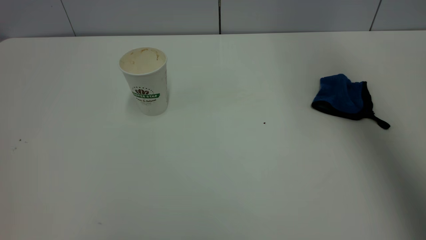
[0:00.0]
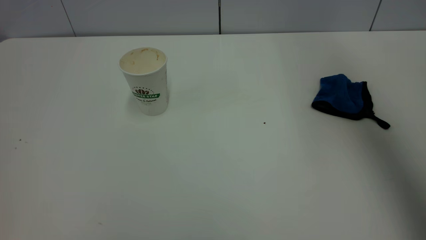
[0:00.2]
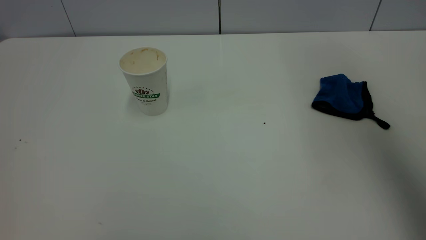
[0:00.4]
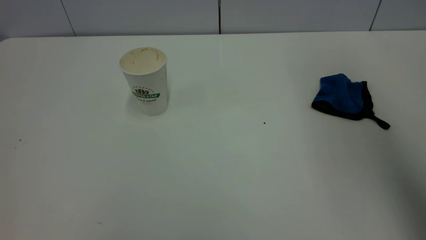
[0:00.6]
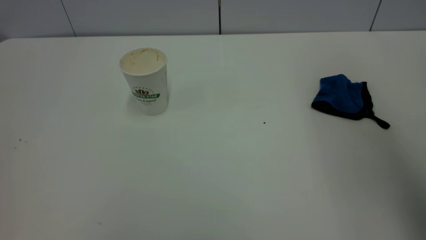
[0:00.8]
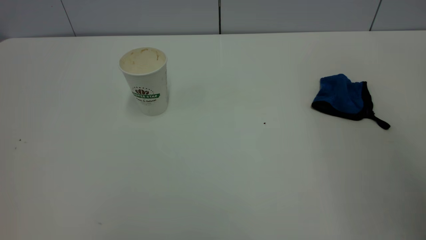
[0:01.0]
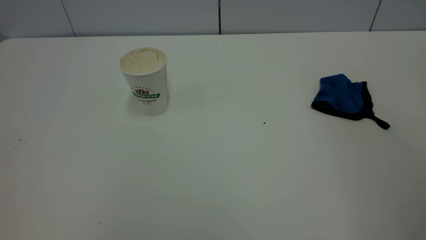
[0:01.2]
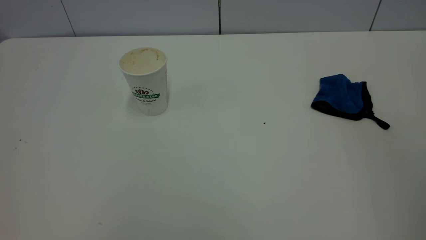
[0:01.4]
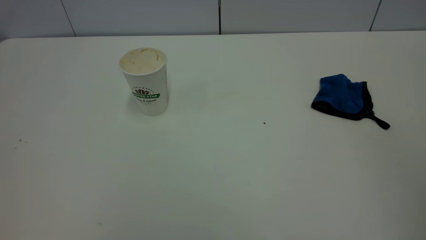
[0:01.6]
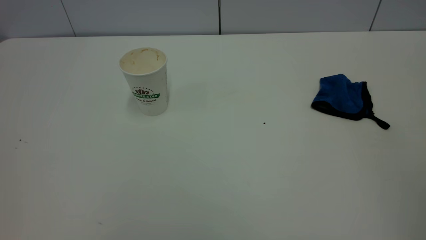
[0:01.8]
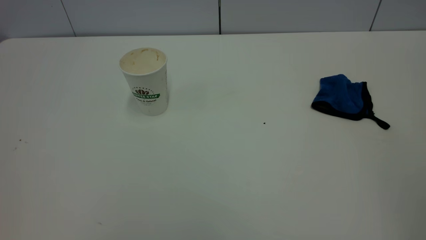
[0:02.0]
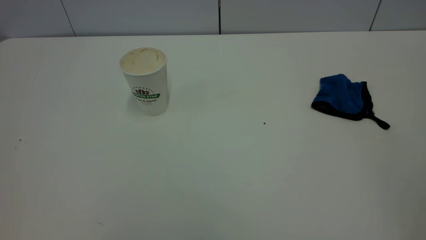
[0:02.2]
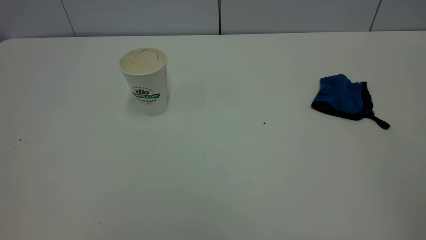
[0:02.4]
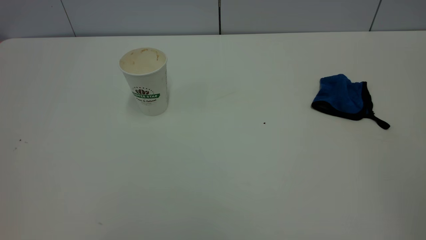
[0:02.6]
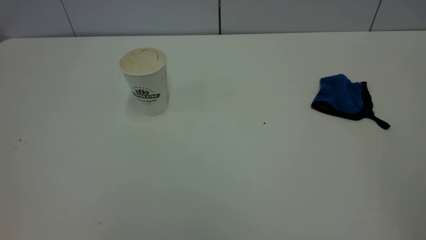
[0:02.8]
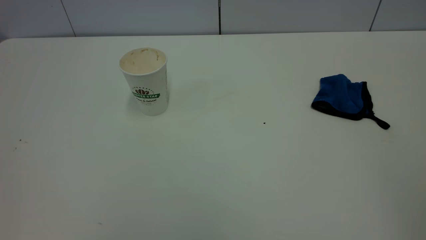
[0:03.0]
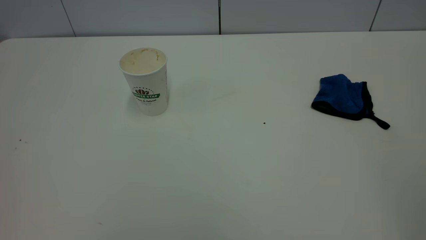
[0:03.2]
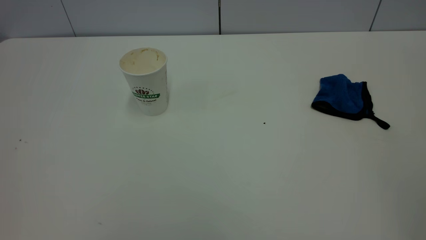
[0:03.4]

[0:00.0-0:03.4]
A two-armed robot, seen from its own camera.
Task of the whole recording: the left gripper pick up the fallen cup and place it upright, the right gripper grasp the blue rag and wipe the tea stain on the table, the right gripper put the blue rag back in its original position.
0:00.0 to 0:01.6: The right gripper heads backward, covering some 40 cm.
